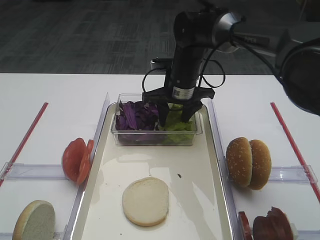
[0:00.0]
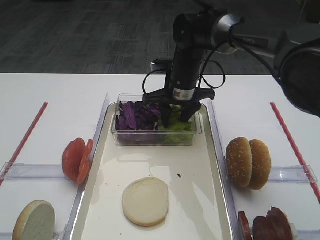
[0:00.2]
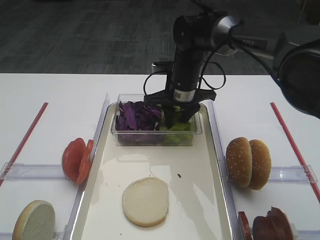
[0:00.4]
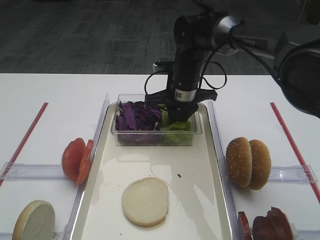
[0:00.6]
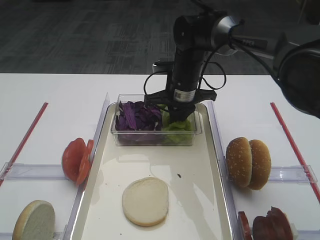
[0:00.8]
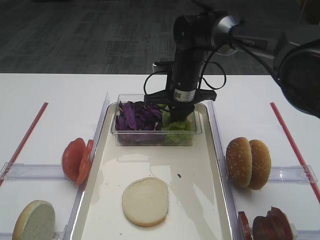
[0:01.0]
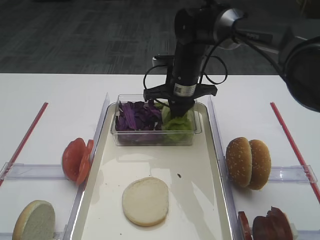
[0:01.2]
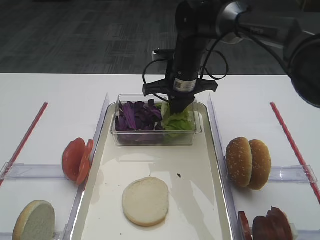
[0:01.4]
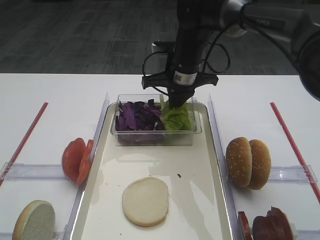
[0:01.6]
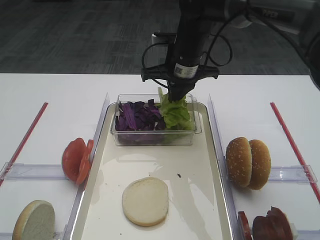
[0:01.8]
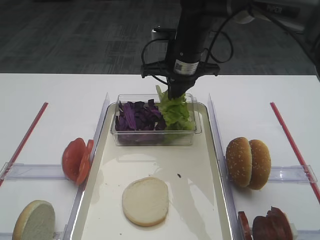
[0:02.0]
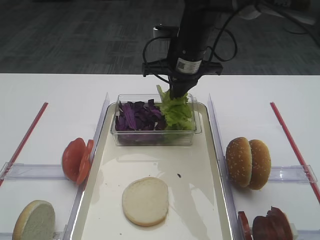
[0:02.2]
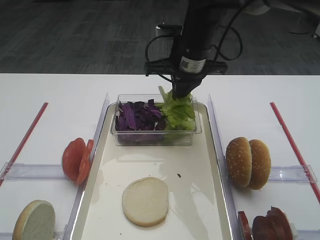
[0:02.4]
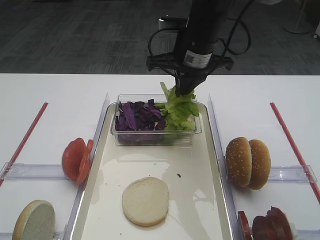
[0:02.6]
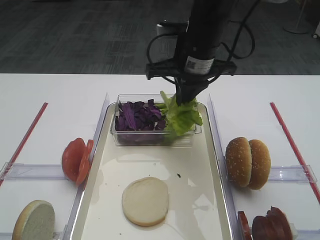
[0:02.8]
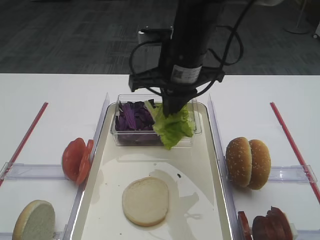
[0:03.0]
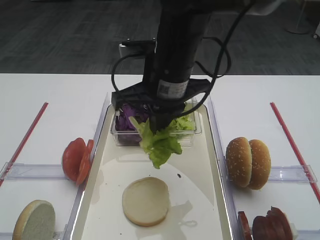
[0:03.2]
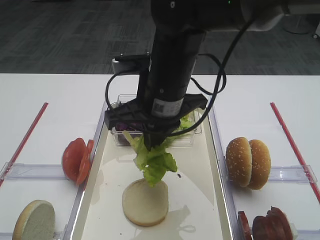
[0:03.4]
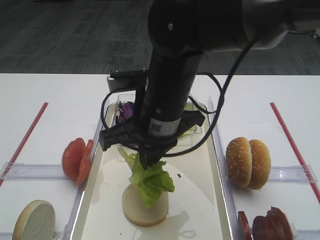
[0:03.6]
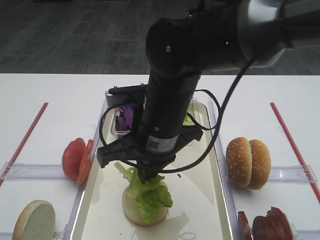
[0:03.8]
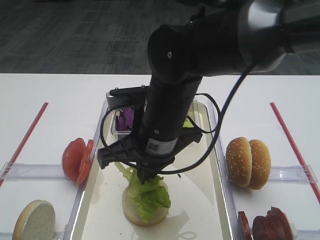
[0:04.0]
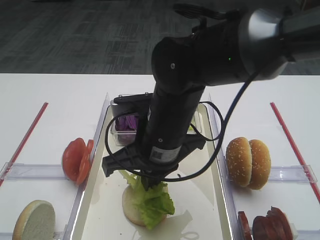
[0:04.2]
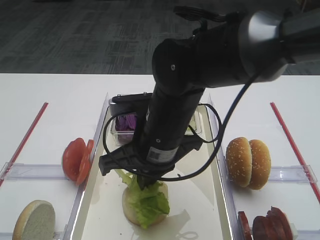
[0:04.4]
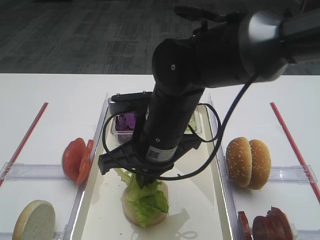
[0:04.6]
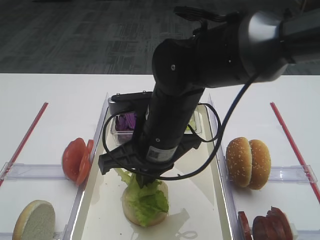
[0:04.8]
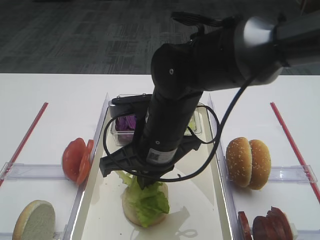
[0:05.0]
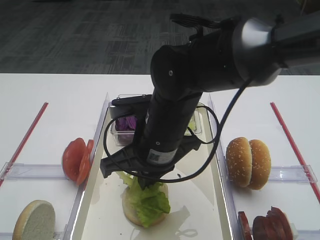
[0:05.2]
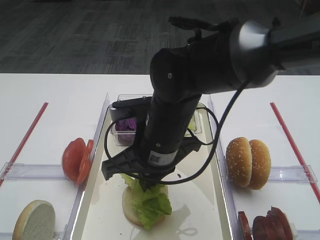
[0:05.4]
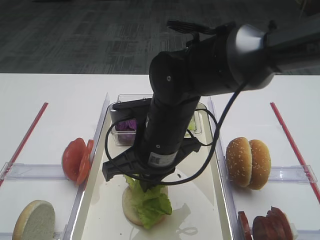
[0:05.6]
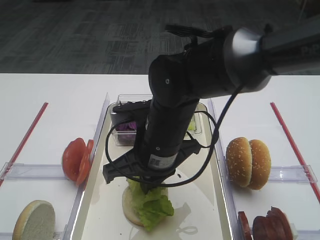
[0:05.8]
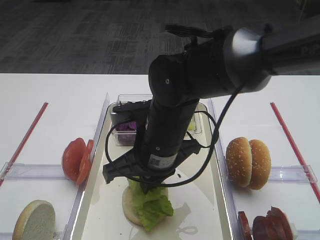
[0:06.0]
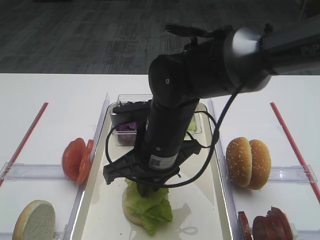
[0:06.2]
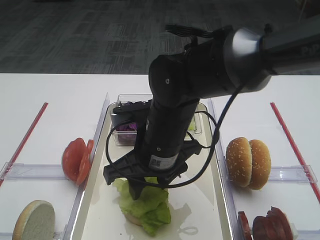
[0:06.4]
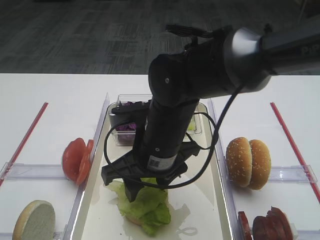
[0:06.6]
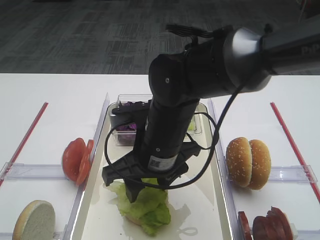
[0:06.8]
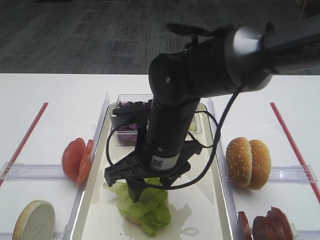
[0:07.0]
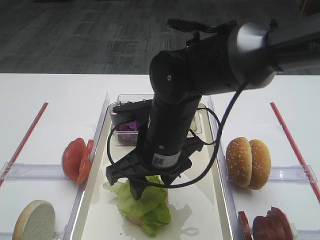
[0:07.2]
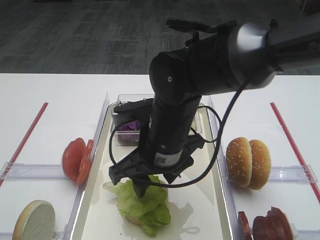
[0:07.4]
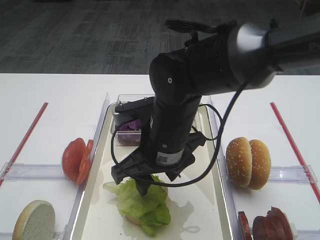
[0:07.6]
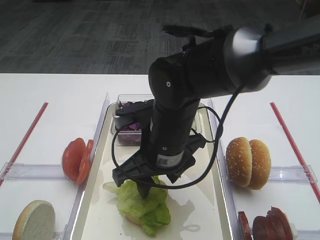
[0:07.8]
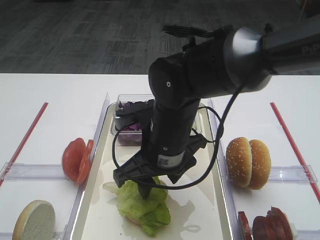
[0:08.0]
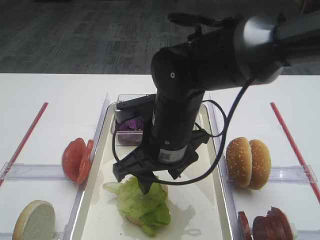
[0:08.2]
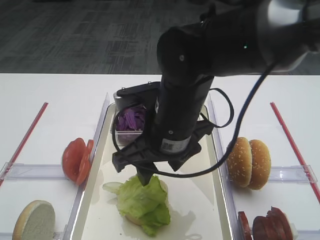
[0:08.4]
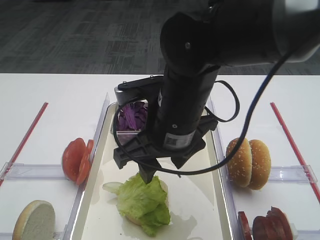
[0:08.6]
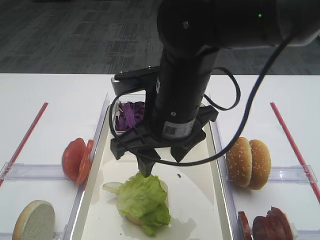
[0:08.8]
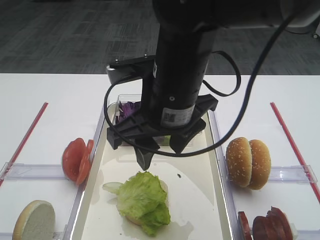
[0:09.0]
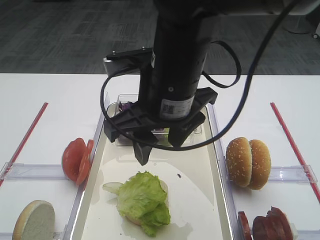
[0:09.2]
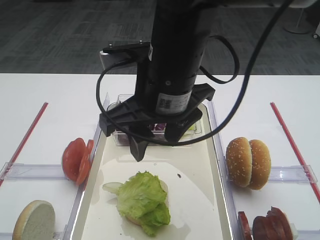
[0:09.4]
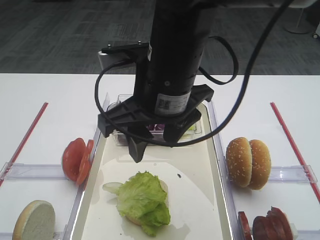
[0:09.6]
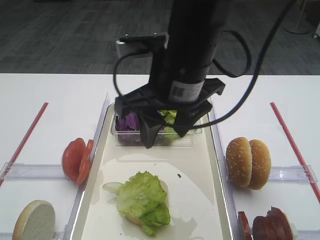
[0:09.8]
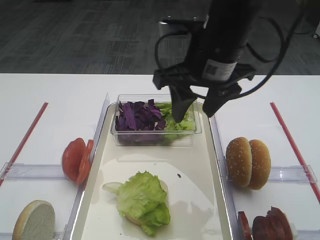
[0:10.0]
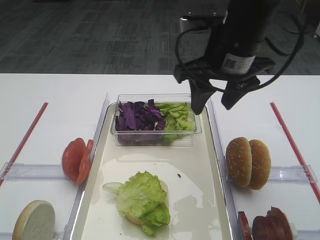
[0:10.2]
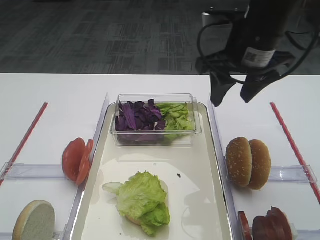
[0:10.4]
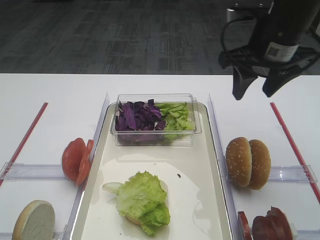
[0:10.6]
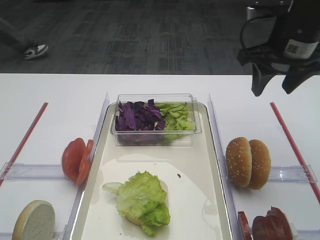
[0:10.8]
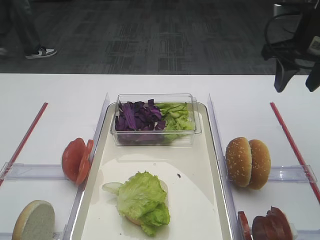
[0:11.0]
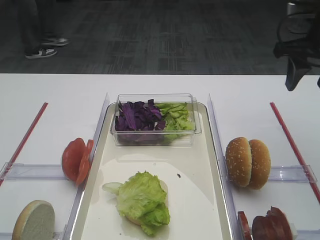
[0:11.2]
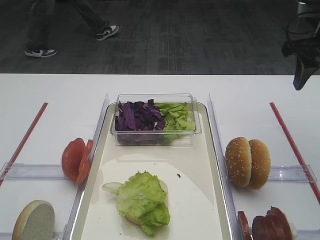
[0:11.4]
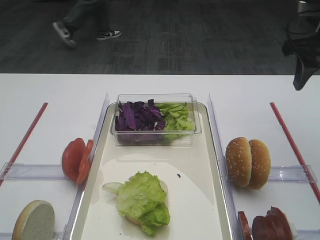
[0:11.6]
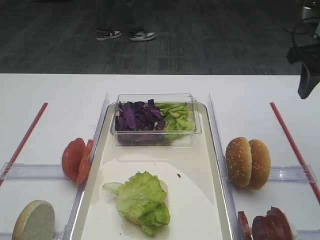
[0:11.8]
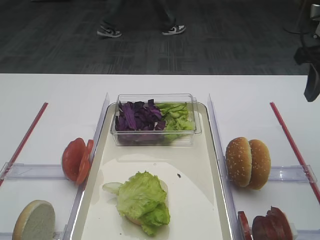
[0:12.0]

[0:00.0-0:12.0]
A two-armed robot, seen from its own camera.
Step, 0:00.0 to 0:02.0: Pick up the lettuce leaf with the right gripper.
Step, 0:02.4 to 0:09.2: Place the lettuce leaf on the bread slice with the right gripper.
0:00.0 to 0:01.6: The right gripper closes up.
0:01.6 to 0:03.0: The right gripper is displaced backward and upward by approximately 10 cm.
0:03.0 to 0:04.4: The right gripper shifts some 10 cm backward and downward.
0:04.4 to 0:06.0: The grippers make only small movements.
0:06.0 to 0:07.6: The right gripper opens.
0:07.6 to 0:09.0: The right gripper is displaced upward by about 10 cm.
0:09.0 to 0:10.4: The right gripper is displaced to the right and forward by roughly 15 cm.
0:10.4 to 0:12.0: The right gripper is displaced to the right by roughly 15 cm.

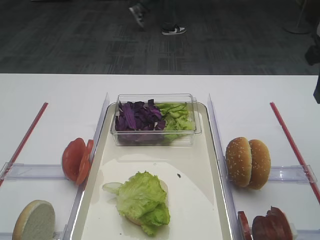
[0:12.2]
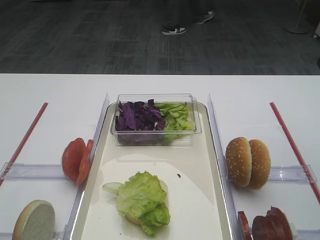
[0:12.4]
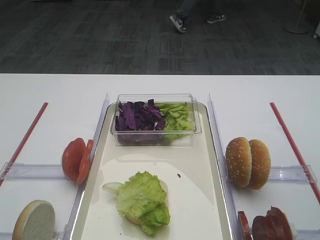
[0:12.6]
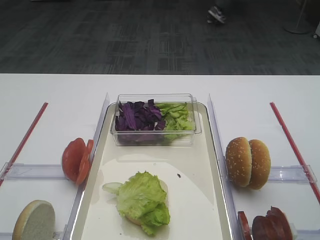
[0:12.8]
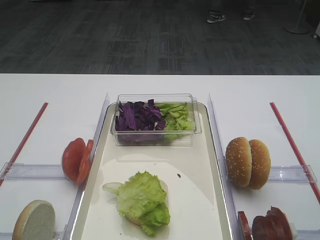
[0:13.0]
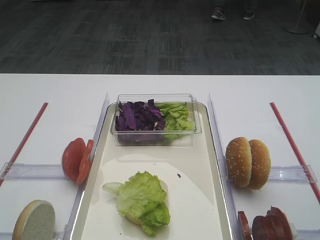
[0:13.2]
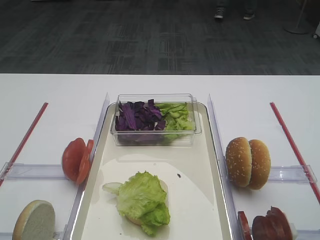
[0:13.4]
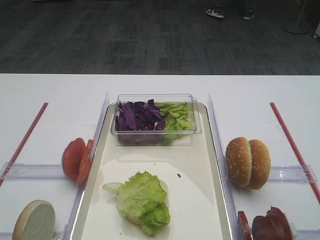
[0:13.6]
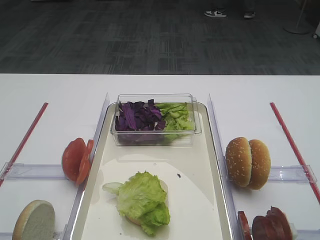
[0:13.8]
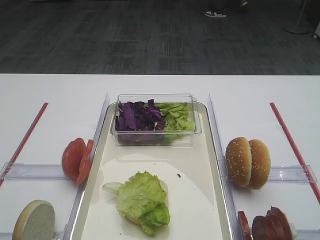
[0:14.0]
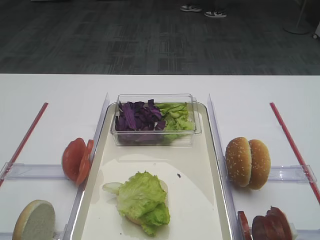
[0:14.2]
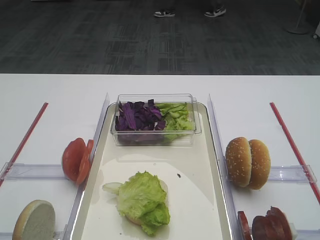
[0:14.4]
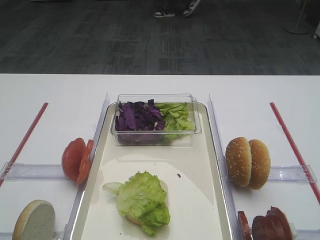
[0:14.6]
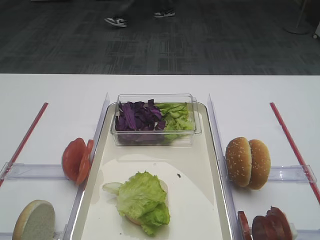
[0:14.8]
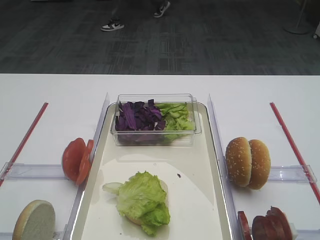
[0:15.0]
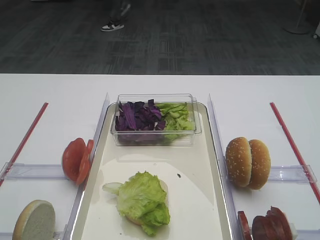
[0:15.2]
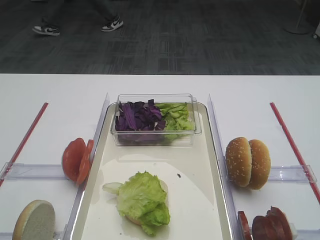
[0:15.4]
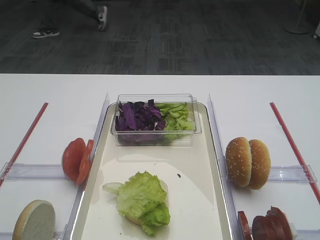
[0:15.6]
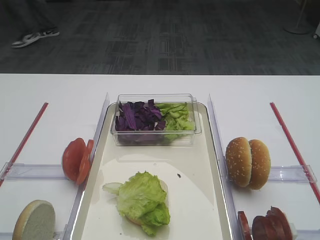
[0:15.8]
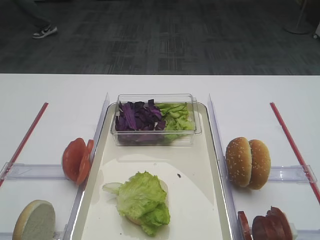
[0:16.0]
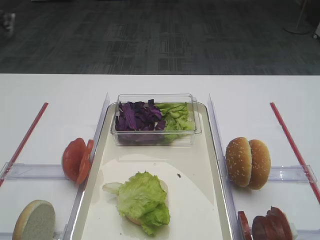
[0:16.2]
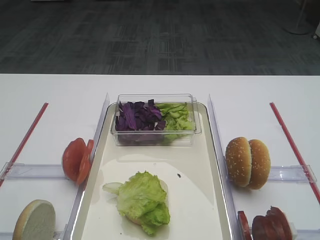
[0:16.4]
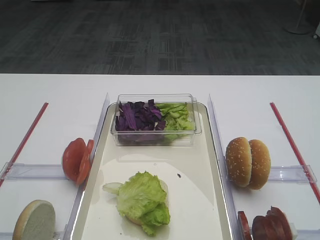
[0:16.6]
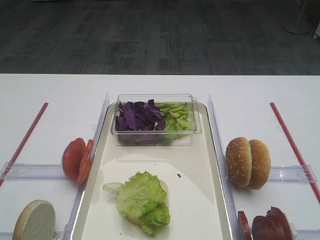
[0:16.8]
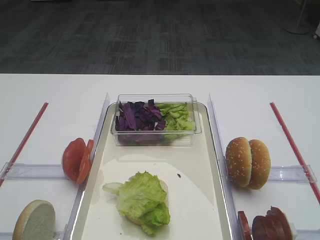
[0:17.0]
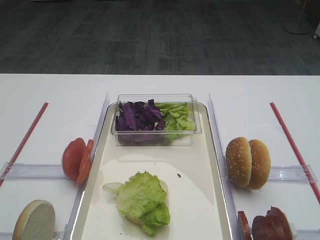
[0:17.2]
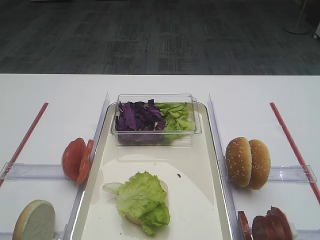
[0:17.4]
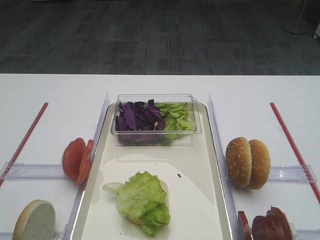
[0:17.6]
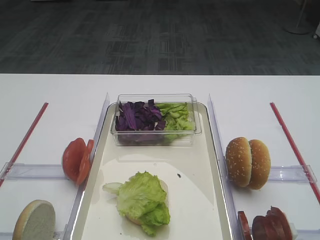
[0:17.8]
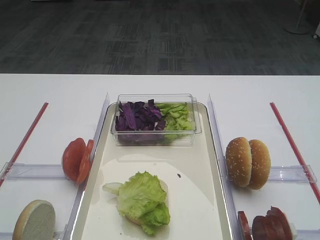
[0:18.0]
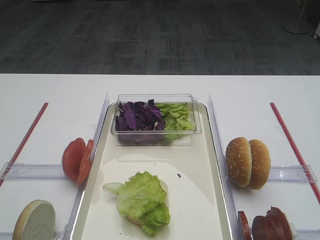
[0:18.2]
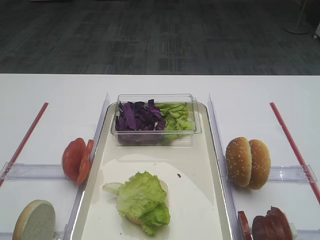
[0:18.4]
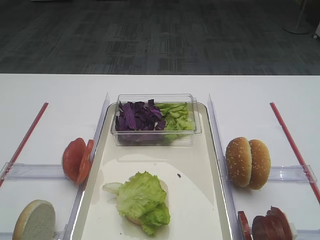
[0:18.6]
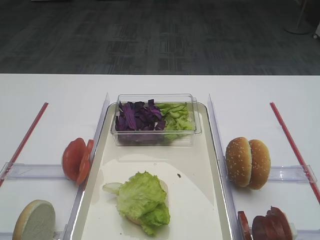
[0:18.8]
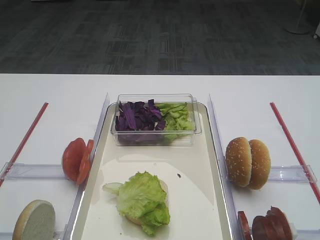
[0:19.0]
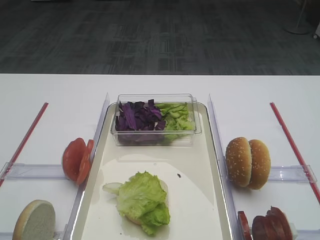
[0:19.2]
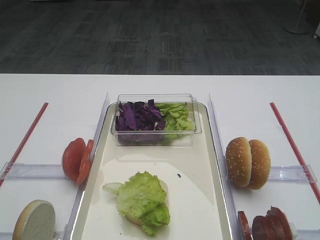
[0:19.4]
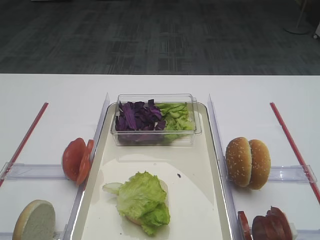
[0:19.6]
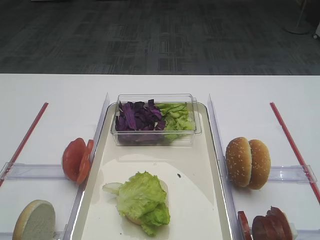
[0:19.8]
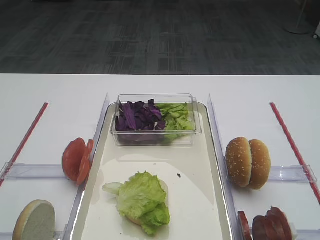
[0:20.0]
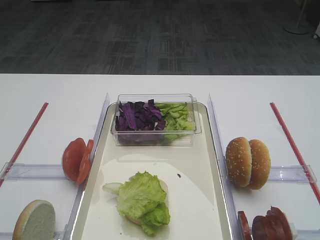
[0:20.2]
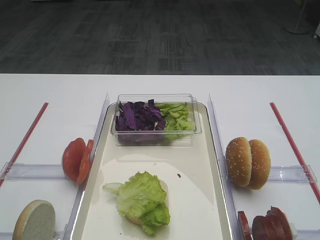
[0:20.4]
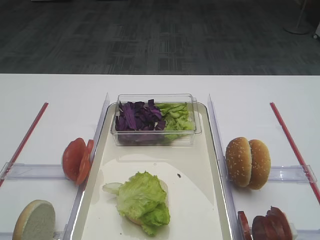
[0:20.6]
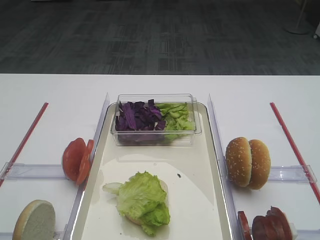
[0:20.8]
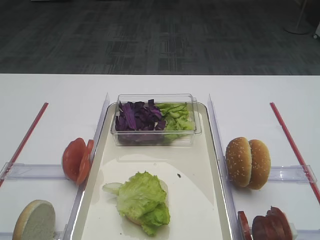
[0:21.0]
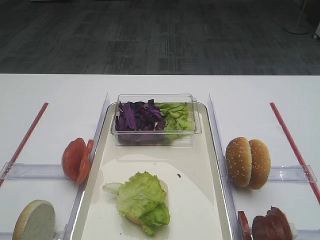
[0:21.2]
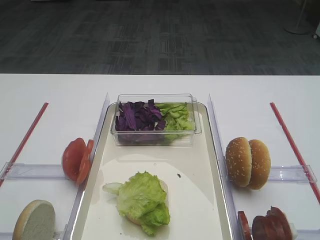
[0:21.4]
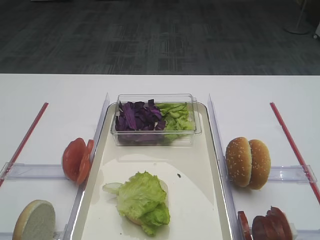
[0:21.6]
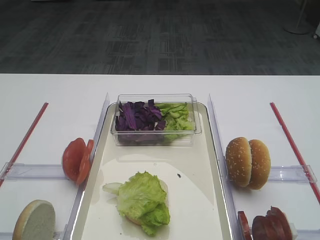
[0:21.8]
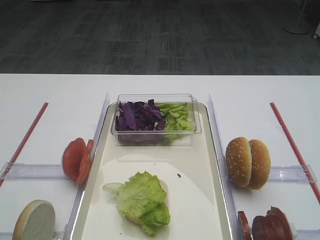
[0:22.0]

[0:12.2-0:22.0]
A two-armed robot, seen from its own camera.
0:12.2 to 0:13.6: The right gripper moves backward, about 15 cm.
0:16.4 to 0:22.0: Both grippers stay put.

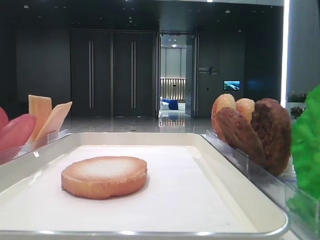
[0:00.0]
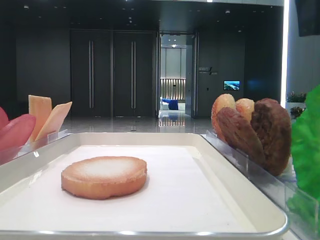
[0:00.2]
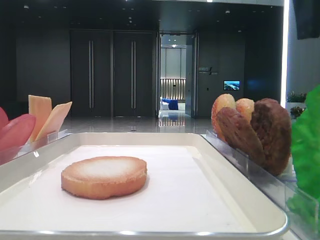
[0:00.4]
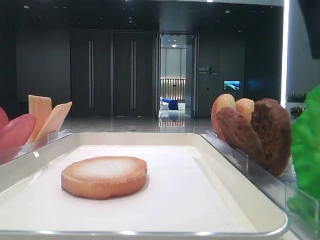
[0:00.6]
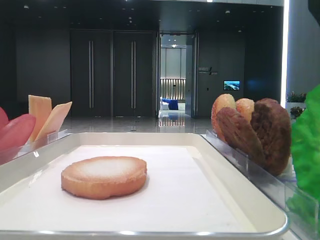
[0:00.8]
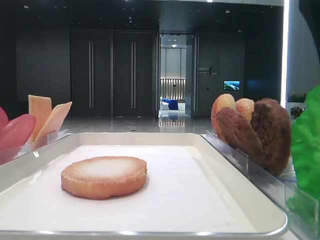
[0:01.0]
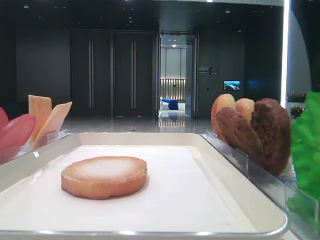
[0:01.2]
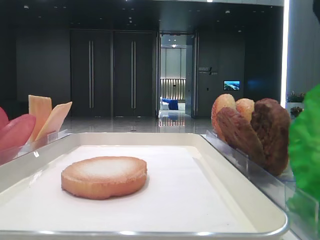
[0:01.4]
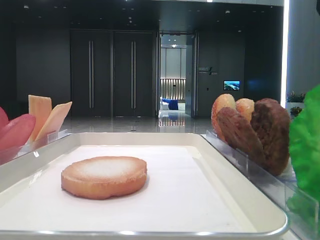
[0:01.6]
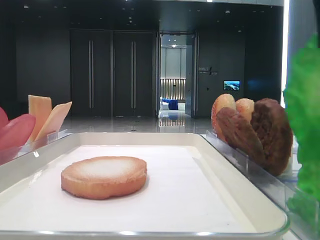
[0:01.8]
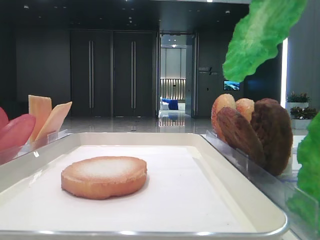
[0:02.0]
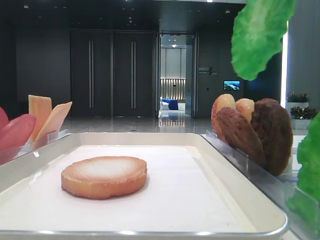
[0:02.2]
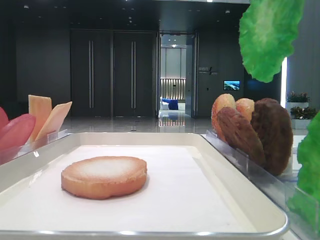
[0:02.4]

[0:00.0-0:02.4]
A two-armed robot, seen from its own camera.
0:00.0 to 0:01.2: The right gripper changes place by approximately 5 cm.
0:01.2 to 0:02.4: The right gripper goes roughly 10 cm upward, and closes its fingers.
